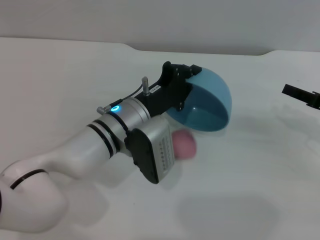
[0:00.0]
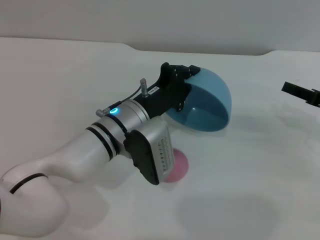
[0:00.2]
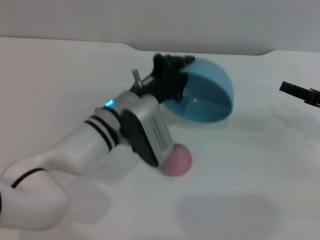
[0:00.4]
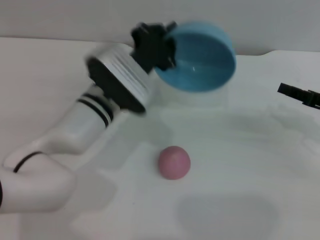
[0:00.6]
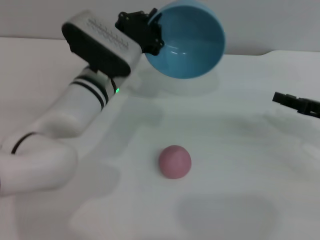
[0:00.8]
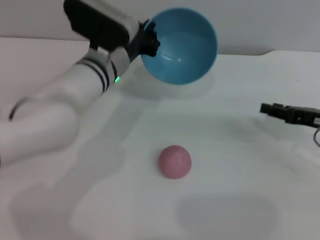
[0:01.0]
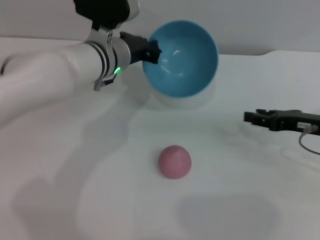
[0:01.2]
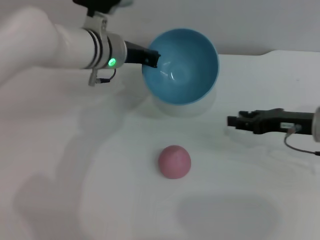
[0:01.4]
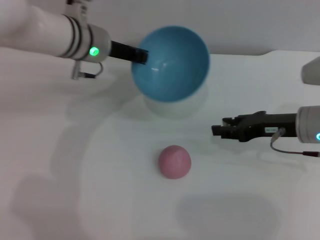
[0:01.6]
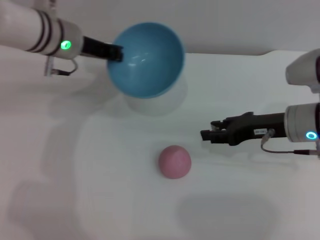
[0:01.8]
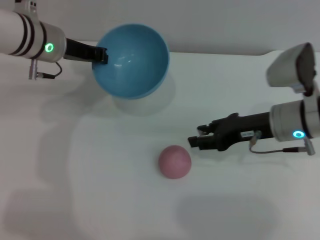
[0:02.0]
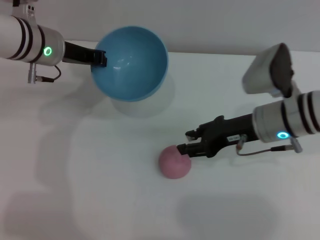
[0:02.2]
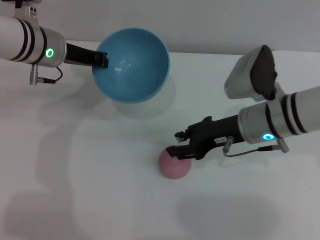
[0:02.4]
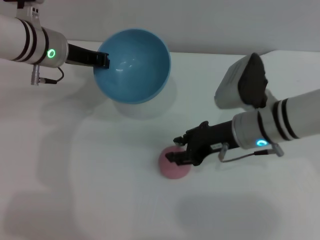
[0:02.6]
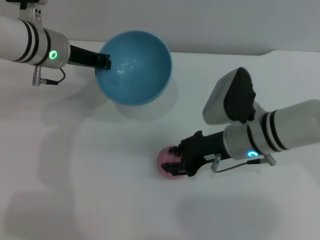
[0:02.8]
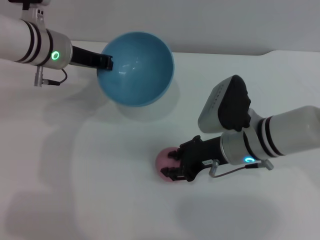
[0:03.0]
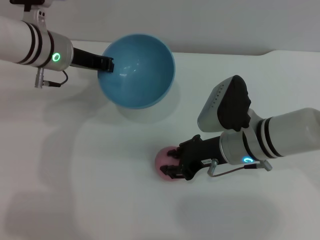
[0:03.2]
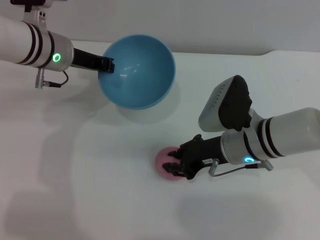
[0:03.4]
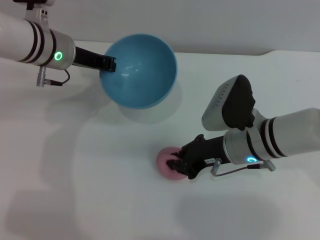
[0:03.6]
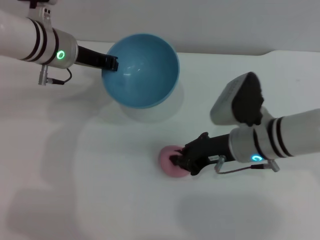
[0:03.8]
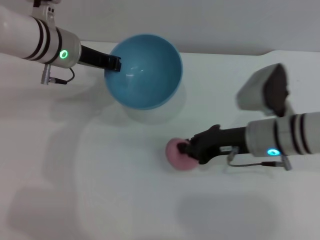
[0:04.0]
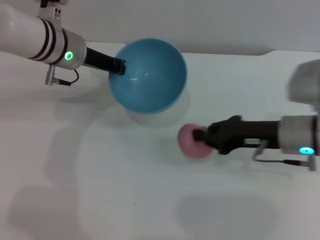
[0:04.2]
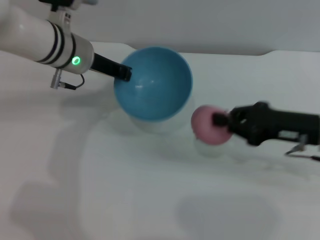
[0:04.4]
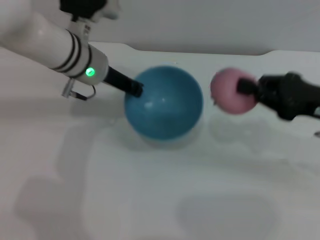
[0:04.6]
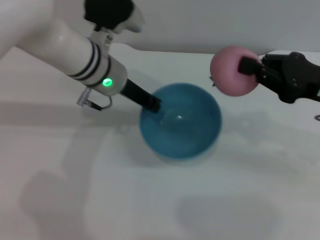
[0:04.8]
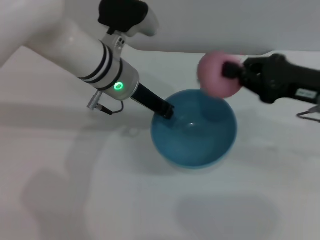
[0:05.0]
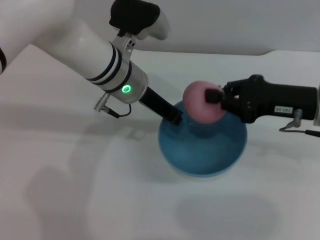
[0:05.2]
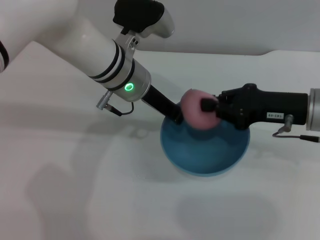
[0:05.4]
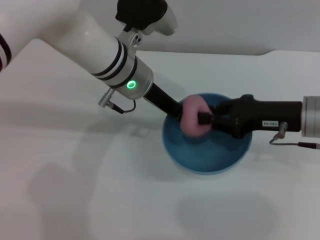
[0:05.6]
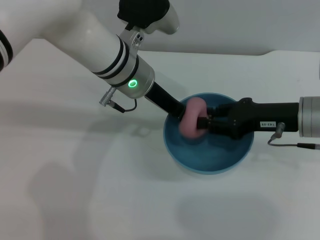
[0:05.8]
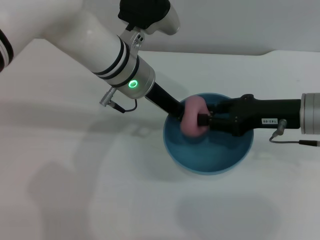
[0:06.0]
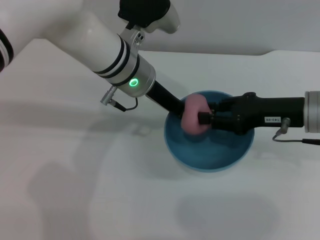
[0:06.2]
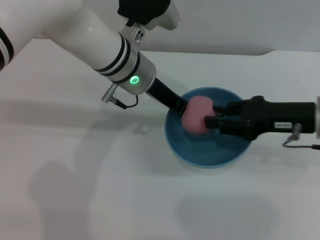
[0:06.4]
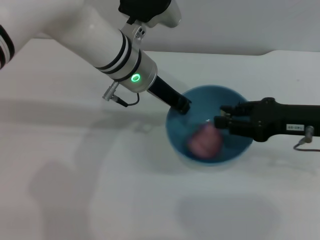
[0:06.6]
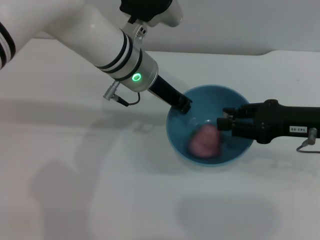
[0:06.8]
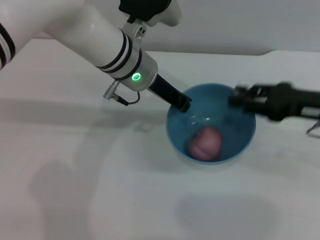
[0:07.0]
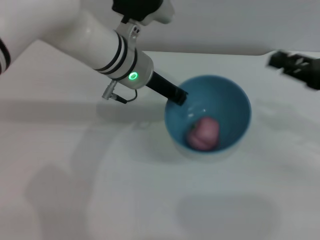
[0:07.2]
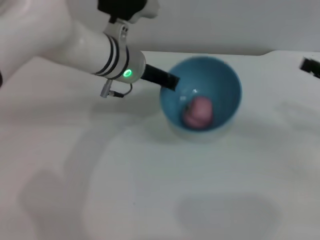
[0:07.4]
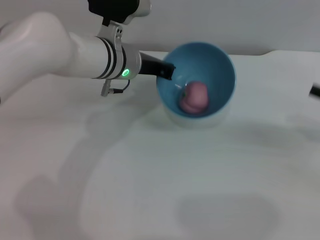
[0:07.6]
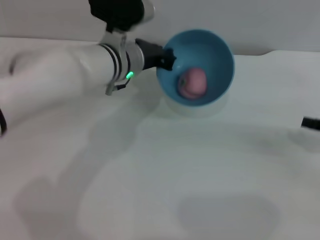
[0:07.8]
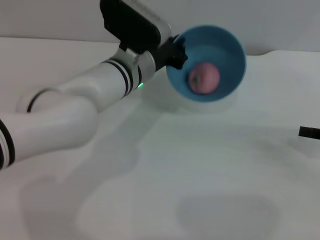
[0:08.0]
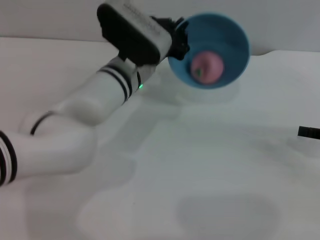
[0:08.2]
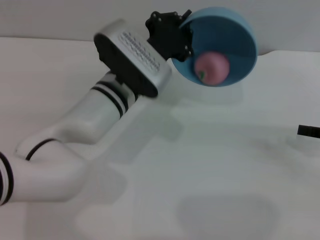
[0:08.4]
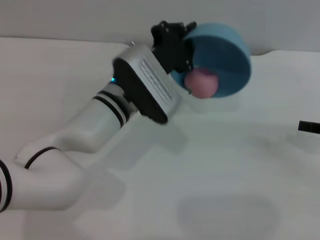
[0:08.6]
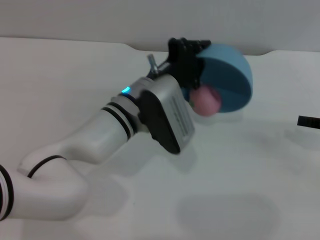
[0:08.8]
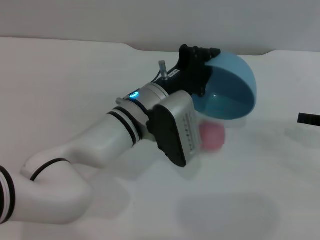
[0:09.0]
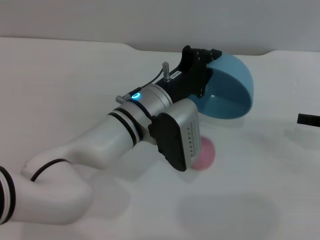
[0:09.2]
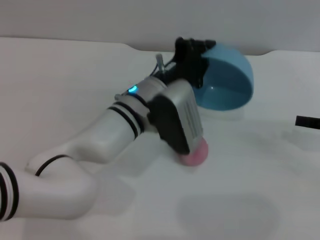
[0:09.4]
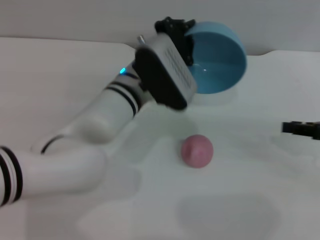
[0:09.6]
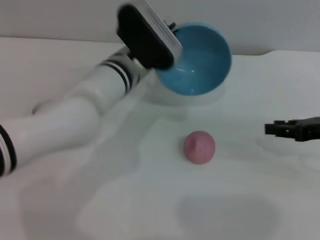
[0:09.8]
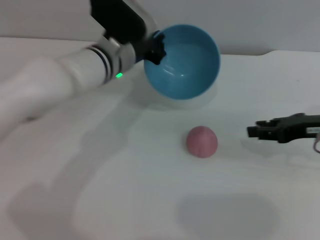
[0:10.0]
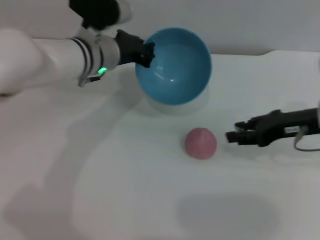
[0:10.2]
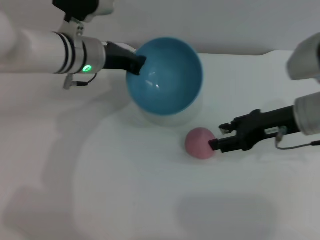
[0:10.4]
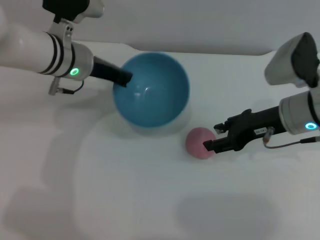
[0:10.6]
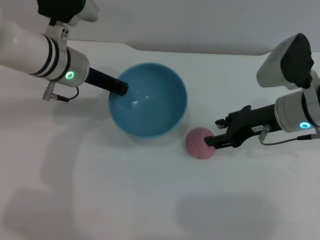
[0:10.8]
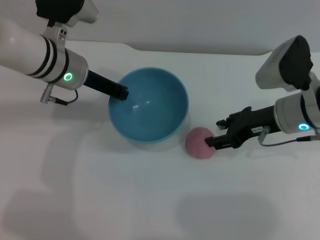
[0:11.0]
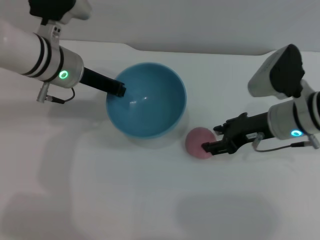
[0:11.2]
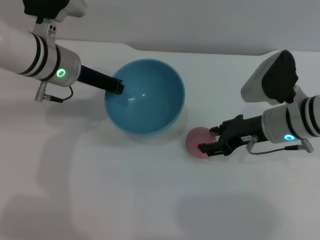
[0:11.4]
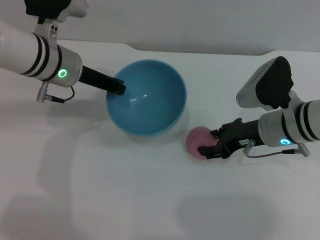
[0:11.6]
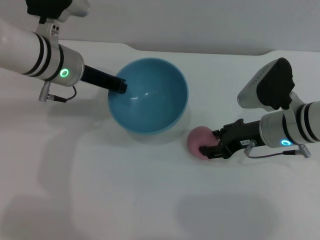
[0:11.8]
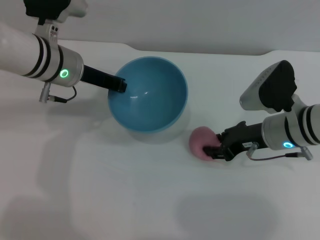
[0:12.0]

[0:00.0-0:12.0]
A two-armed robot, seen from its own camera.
Task of the whole recording: put the peach into the blue bowl and pour it out repeatedly.
Step, 0:00.4 to 0:04.2: Pick up the peach with the right gripper.
Step, 0:04.4 to 0:06.8: Place the peach into the bowl.
Step, 0:07.2 to 0:09.4: Pour the peach out of bowl.
0:00.0 to 0:01.6: The right gripper travels to the left by approximately 10 cm. Meanwhile the left gripper travels forward, upward and to the left by approximately 15 cm.
0:01.6 to 0:03.0: The left gripper moves to the left, approximately 5 cm. The right gripper moves to the left, some 10 cm.
0:03.0 to 0:04.4: The right gripper is displaced to the right by approximately 10 cm, and closes up.
0:04.4 to 0:06.0: The left gripper moves to the right, roughly 10 cm. The right gripper opens up.
0:06.0 to 0:07.6: The right gripper goes about 15 cm to the right.
0:07.6 to 0:09.0: The left gripper travels backward by about 10 cm.
0:09.0 to 0:10.4: The left gripper is displaced to the left, forward and upward by some 15 cm. Meanwhile the right gripper heads to the left, covering about 15 cm.
0:10.4 to 0:12.0: The right gripper heads downward, covering roughly 5 cm.

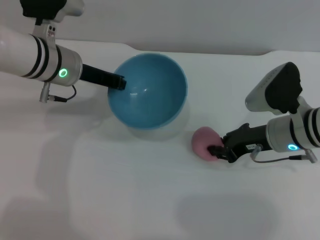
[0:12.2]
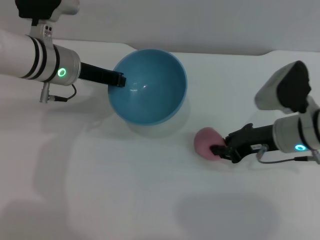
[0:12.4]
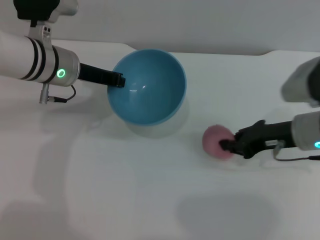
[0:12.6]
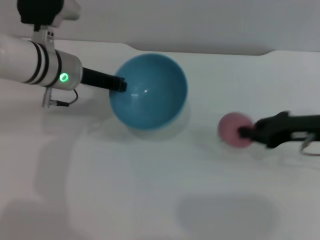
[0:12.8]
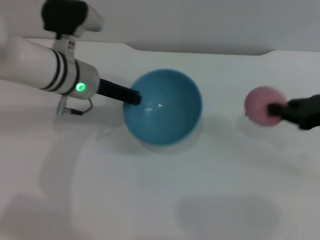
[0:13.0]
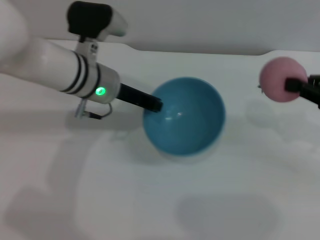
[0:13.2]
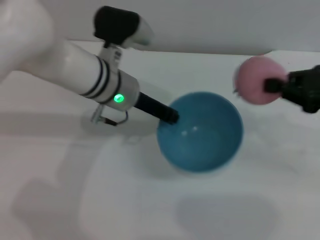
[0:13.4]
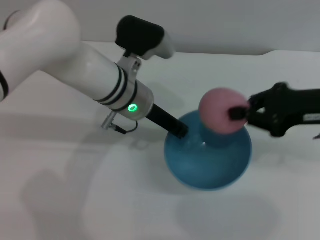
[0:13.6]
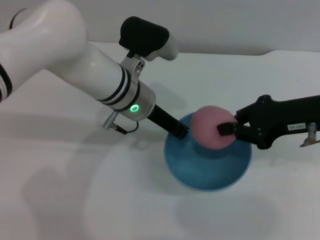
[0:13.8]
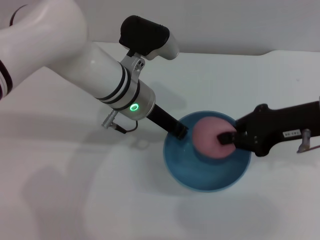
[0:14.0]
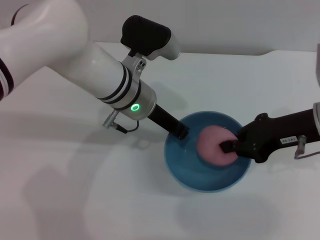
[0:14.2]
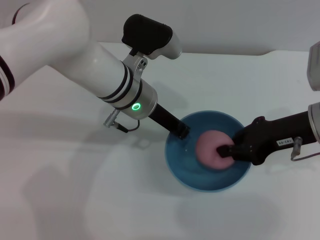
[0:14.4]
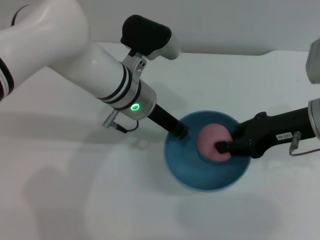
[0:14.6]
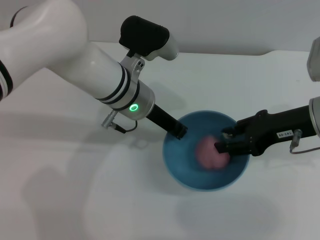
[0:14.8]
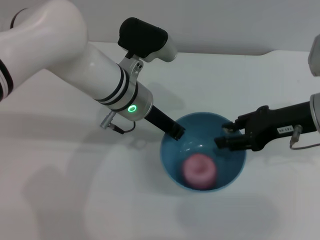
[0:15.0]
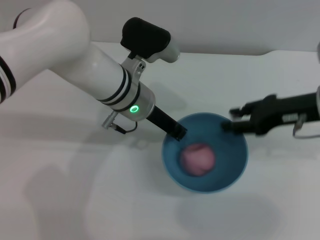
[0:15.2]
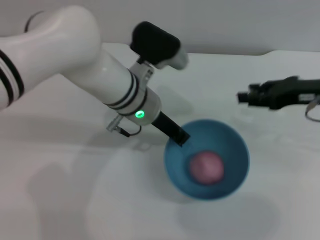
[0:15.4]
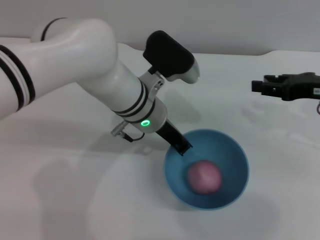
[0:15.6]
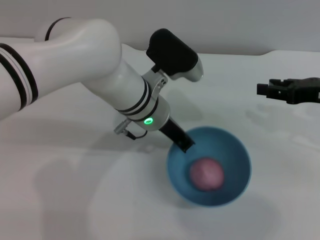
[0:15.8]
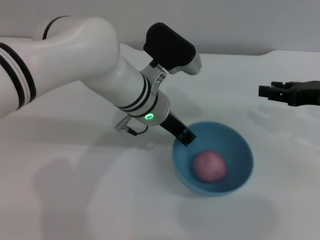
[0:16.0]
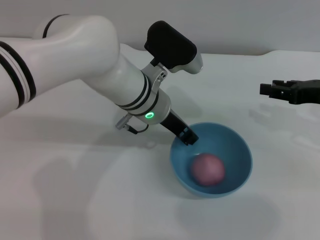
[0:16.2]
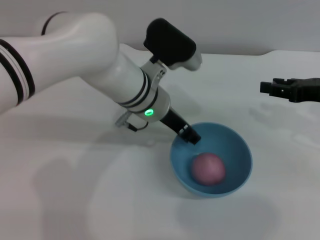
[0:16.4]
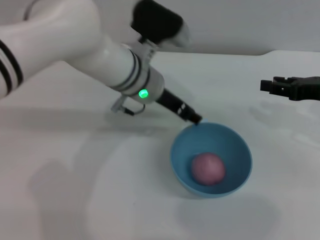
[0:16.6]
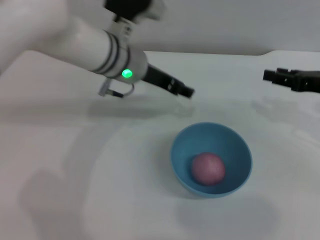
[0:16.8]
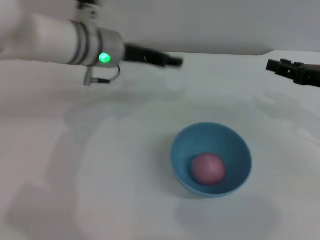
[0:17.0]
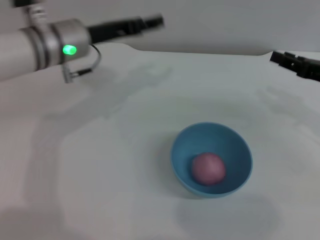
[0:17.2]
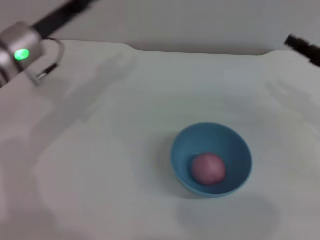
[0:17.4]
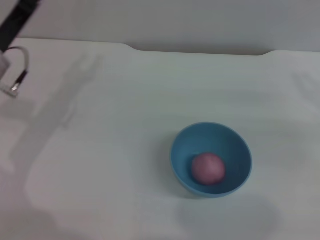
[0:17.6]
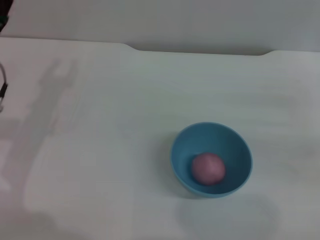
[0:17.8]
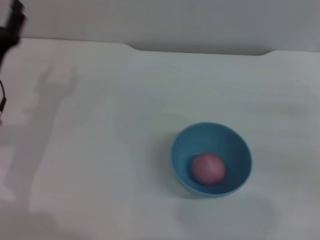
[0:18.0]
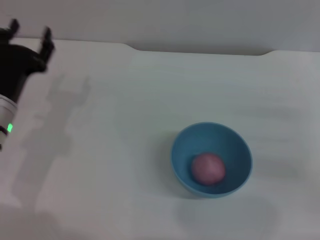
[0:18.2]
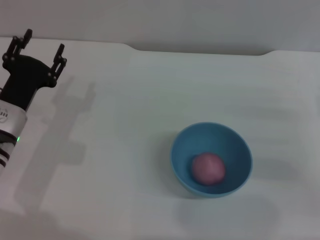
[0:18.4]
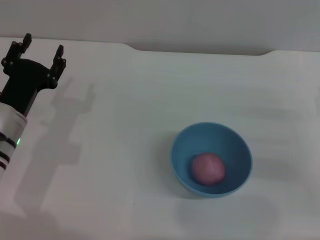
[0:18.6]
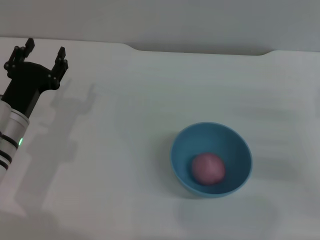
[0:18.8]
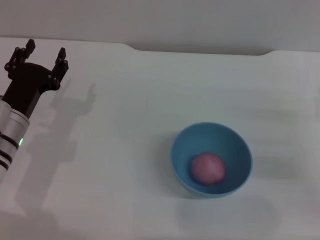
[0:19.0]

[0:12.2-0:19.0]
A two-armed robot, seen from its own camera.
Task of the whole recording: put the peach into the blue bowl and pour it out repeatedly.
Step, 0:13.0 to 0:15.0: Place the peach into the bowl.
Step, 0:15.2 to 0:16.8: Place the bowl on the table.
0:12.2 to 0:13.6: The right gripper is displaced upward and to the right by approximately 10 cm, and closes its fingers. Meanwhile the left gripper heads to the right, covering some 10 cm.
0:13.6 to 0:15.0: The right gripper opens its fingers.
0:15.0 to 0:16.2: The right gripper moves to the right, some 5 cm.
0:16.2 to 0:17.6: The left gripper travels to the left by roughly 25 cm, and opens up; the right gripper changes place by roughly 5 cm.
0:17.6 to 0:19.0: The left gripper heads downward and backward, covering roughly 10 cm.
